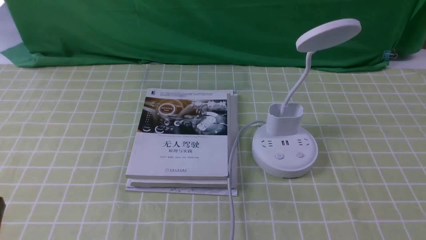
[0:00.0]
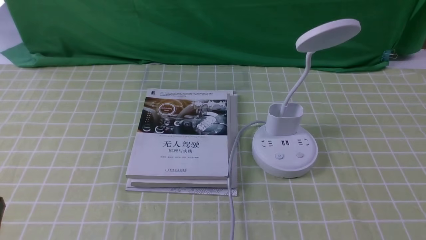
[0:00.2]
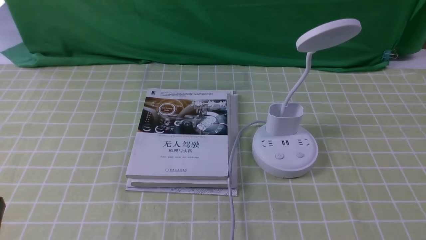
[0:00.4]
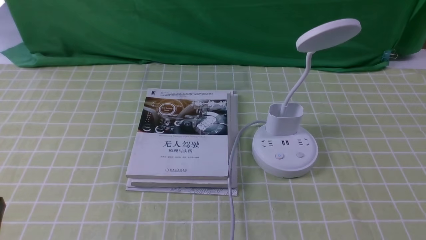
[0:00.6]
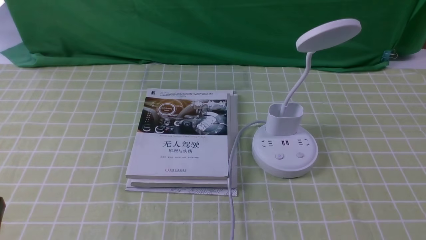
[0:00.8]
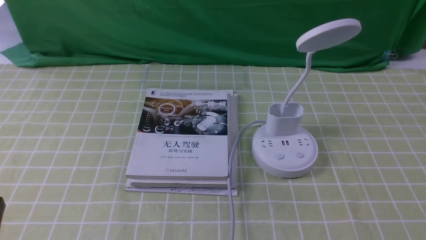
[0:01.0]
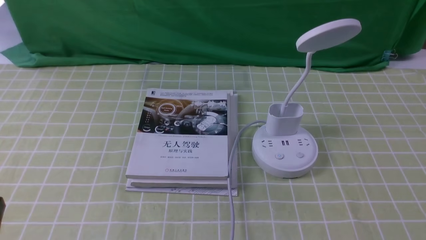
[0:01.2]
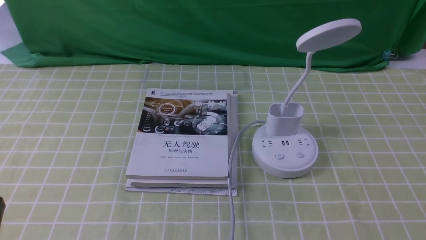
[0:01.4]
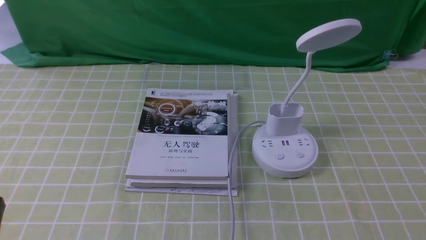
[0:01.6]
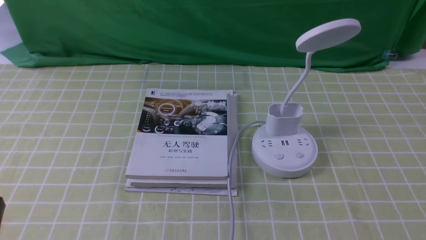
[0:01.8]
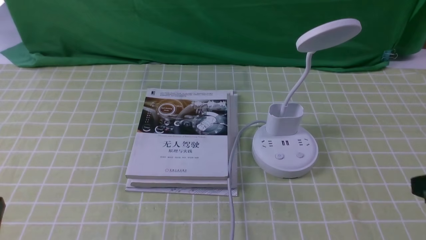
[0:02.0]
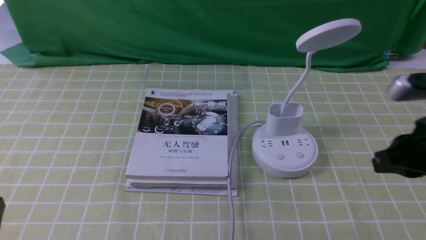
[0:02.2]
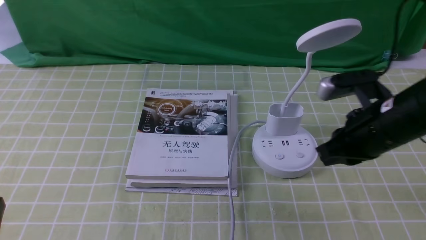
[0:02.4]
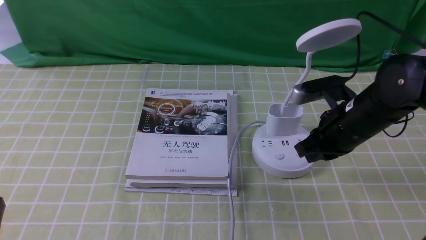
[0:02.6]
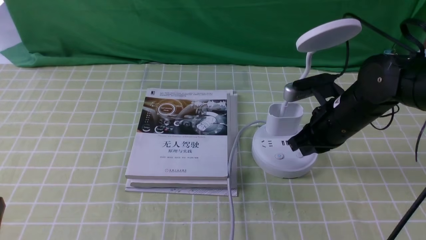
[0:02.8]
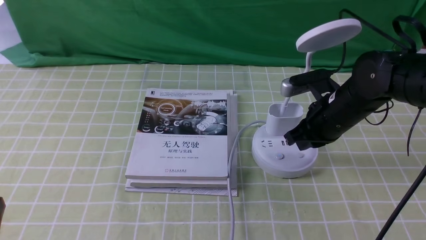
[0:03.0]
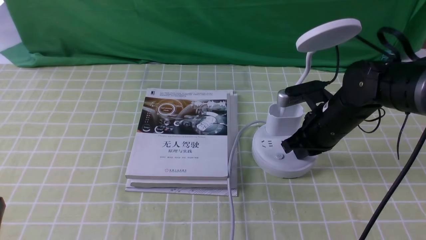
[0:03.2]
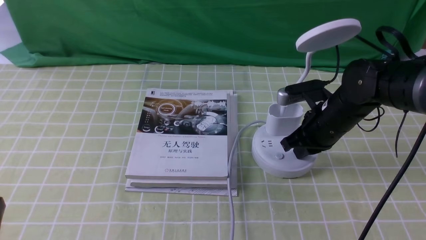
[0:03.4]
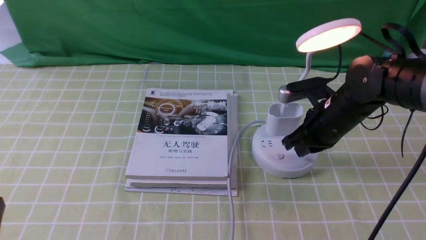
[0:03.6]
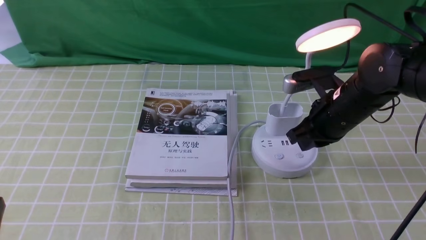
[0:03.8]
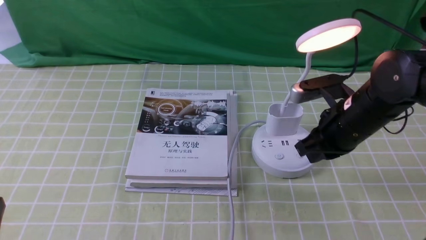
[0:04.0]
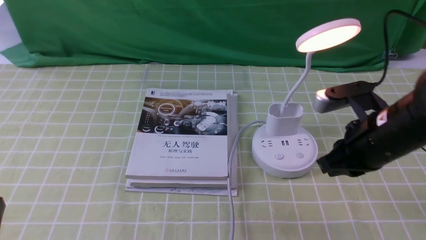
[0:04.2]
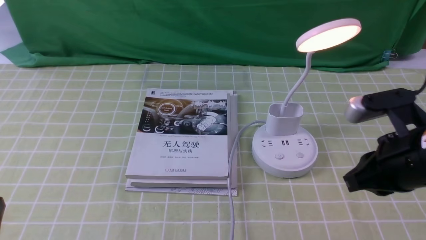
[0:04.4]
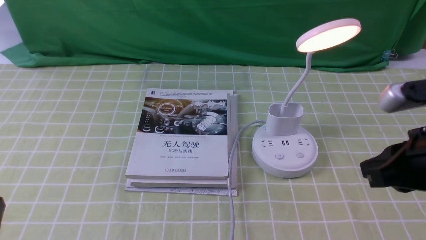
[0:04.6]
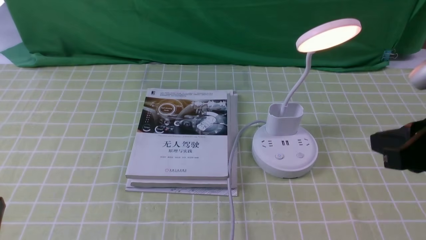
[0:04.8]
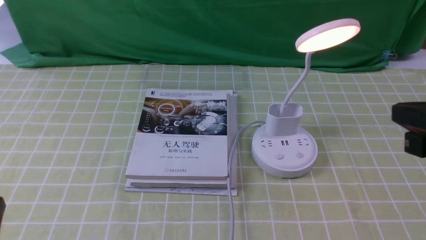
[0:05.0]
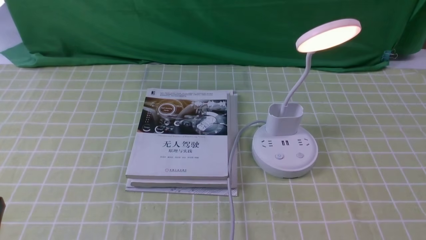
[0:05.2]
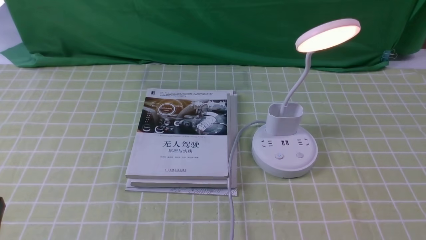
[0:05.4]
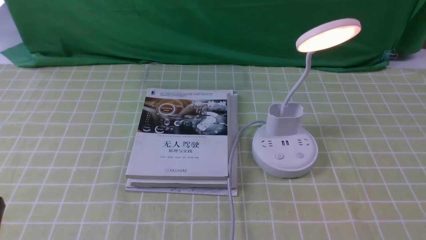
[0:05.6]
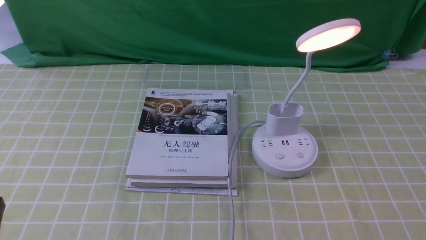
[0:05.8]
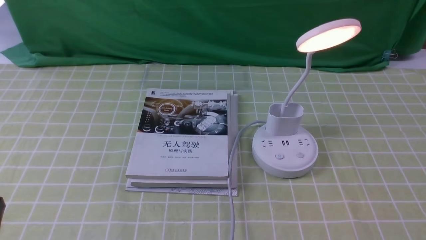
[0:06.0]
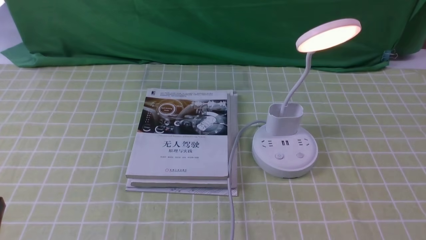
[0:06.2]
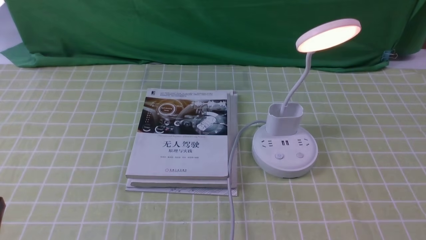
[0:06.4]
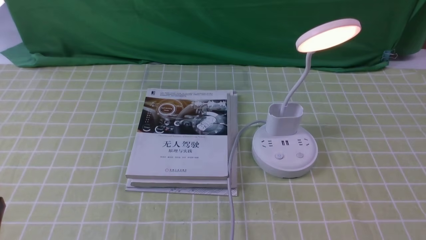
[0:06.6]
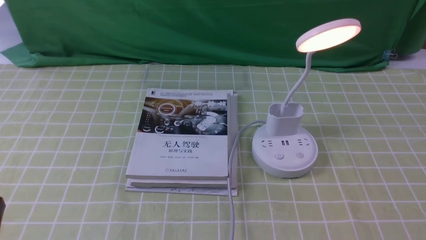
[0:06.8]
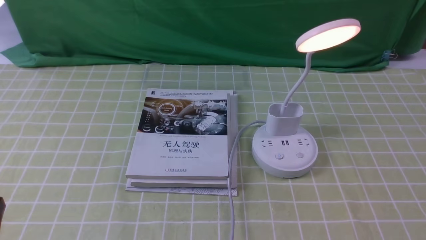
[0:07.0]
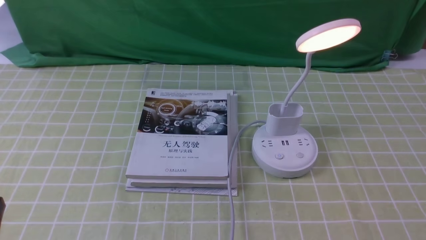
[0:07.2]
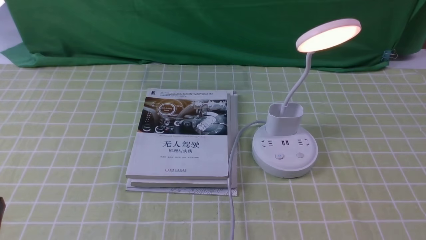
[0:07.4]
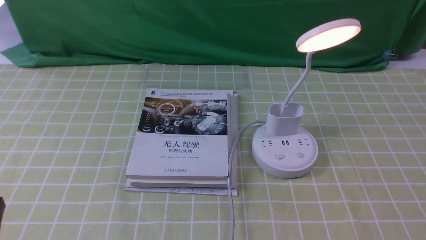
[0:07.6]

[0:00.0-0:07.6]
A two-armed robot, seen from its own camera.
Step, 0:00.0 to 0:03.8: use the right arm to press the button switch on the lamp holder.
0:01.6 to 0:03.0: The right gripper travels forward and to the left by some 30 cm, and closes its fingers.
0:03.0 to 0:04.6: The right gripper moves backward and upward, some 20 cm.
0:04.6 to 0:06.0: The right gripper is displaced backward, downward and to the right by roughly 20 cm.

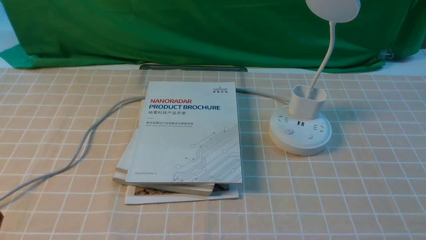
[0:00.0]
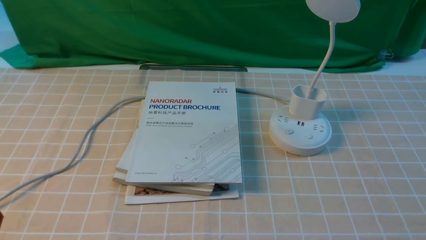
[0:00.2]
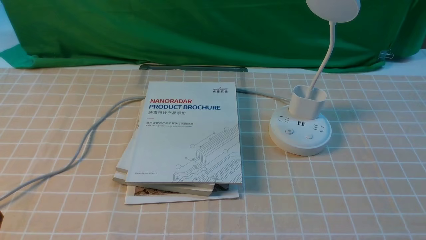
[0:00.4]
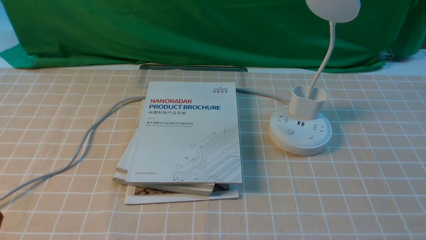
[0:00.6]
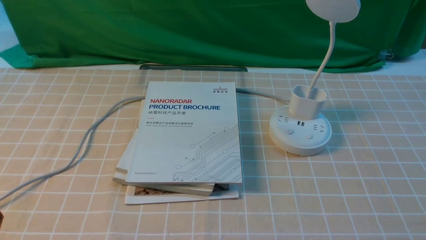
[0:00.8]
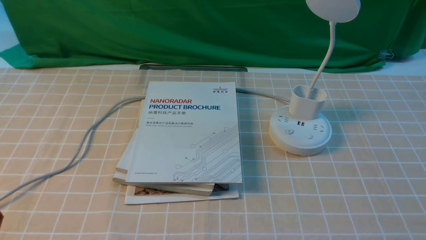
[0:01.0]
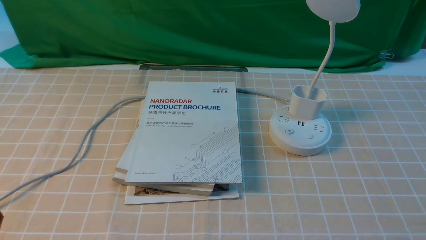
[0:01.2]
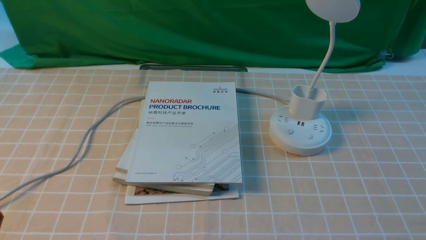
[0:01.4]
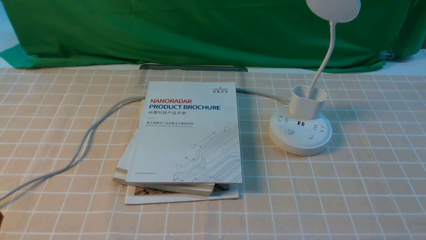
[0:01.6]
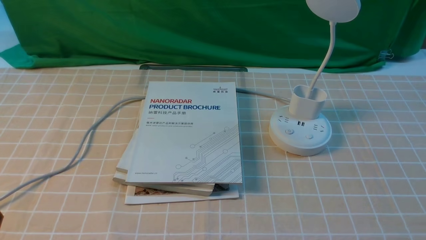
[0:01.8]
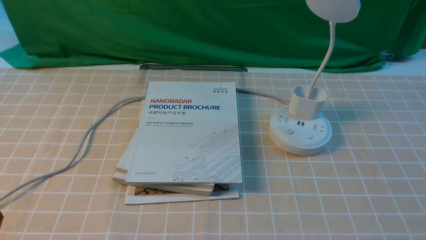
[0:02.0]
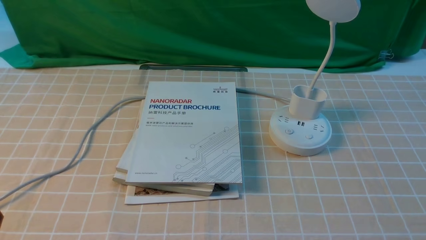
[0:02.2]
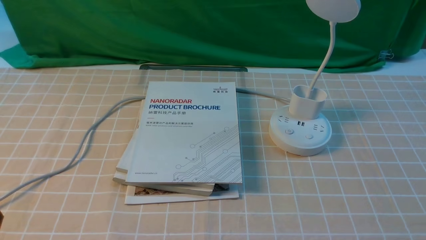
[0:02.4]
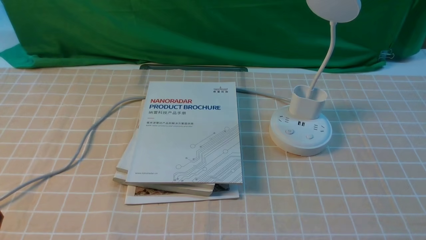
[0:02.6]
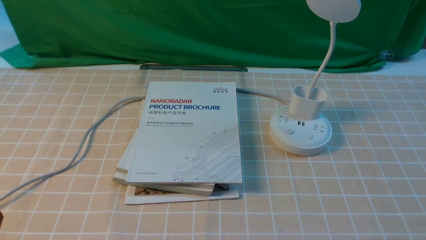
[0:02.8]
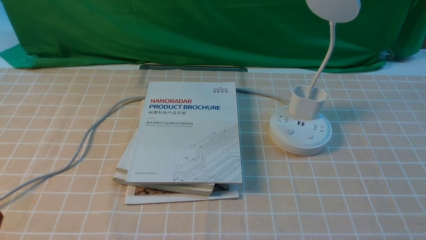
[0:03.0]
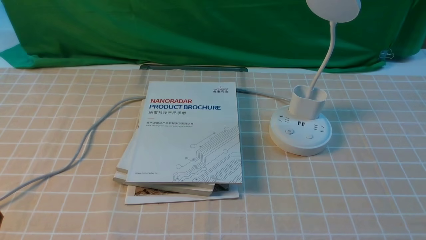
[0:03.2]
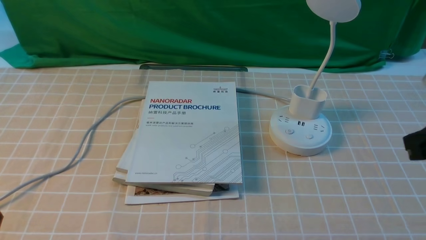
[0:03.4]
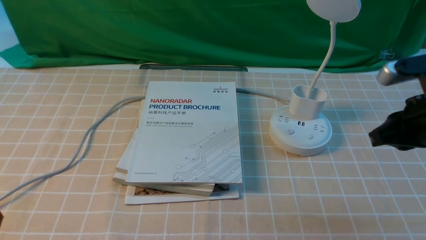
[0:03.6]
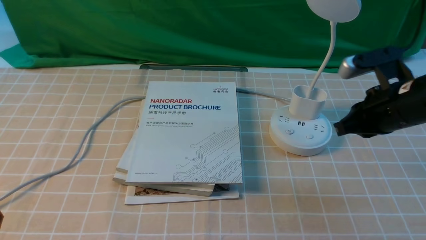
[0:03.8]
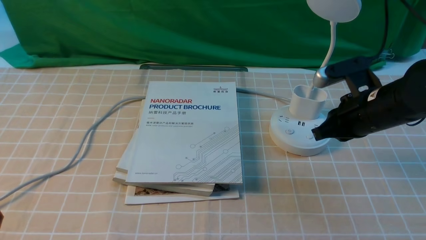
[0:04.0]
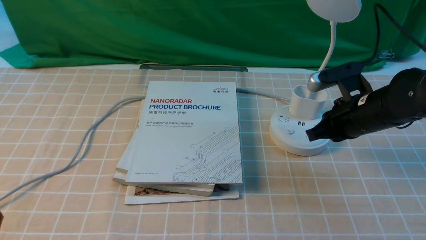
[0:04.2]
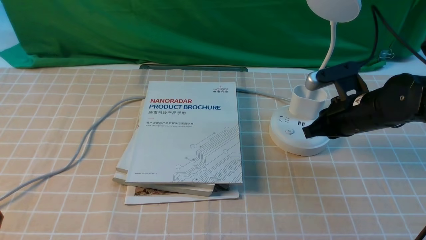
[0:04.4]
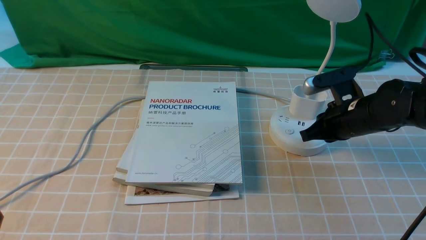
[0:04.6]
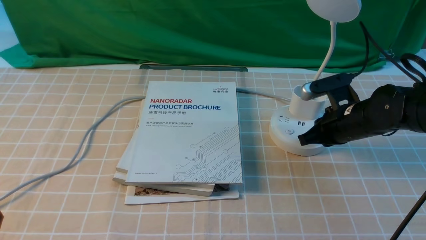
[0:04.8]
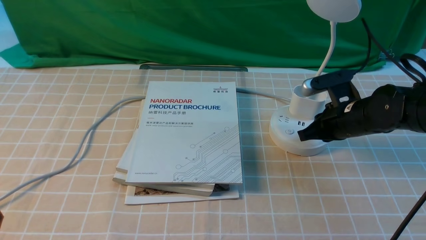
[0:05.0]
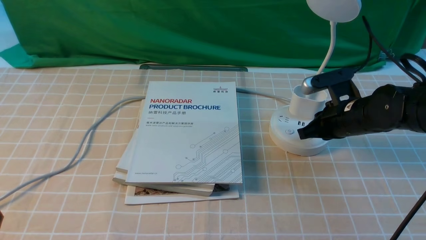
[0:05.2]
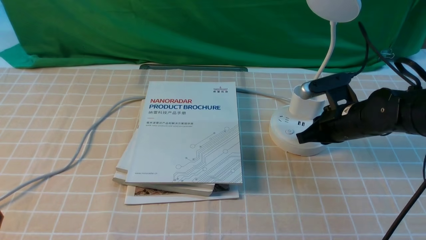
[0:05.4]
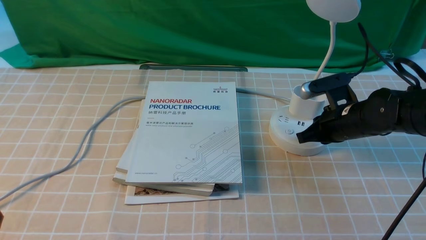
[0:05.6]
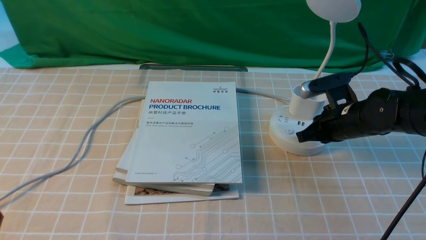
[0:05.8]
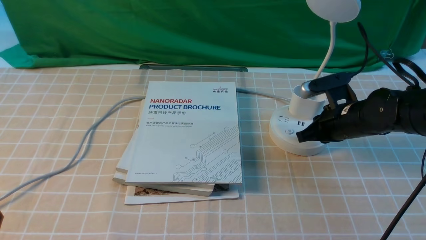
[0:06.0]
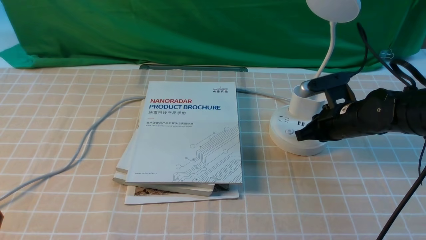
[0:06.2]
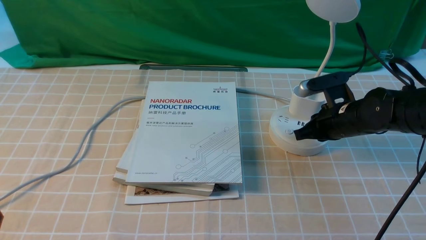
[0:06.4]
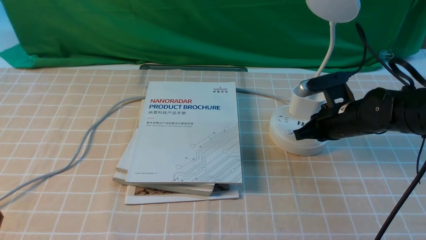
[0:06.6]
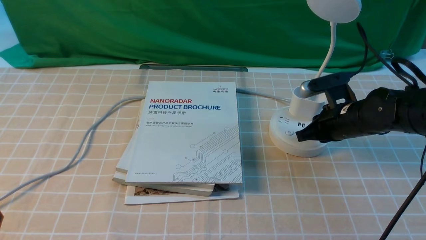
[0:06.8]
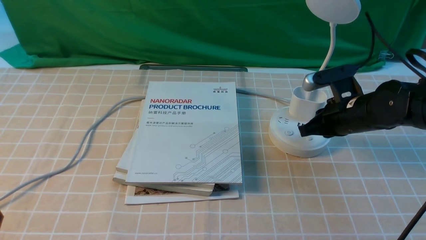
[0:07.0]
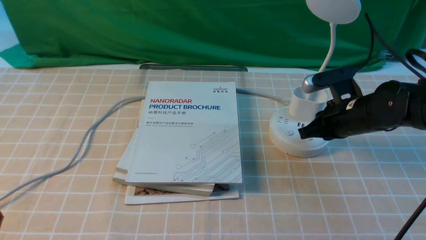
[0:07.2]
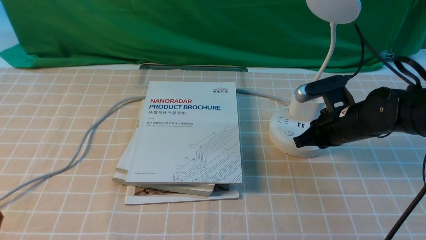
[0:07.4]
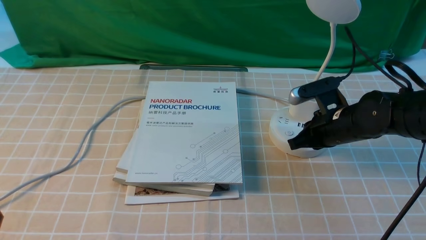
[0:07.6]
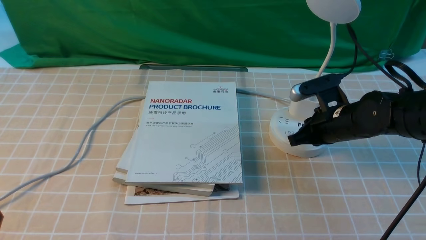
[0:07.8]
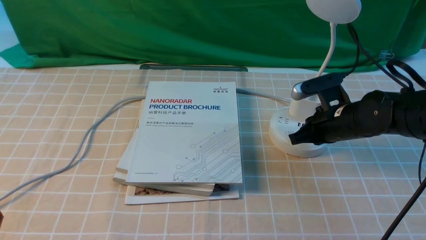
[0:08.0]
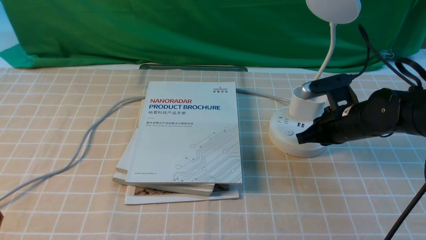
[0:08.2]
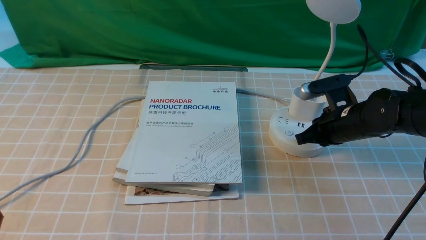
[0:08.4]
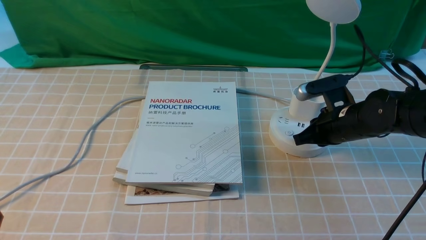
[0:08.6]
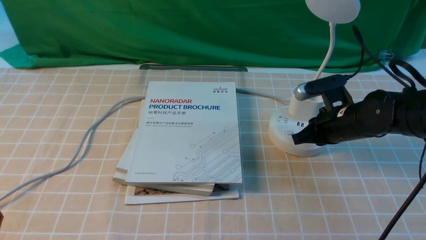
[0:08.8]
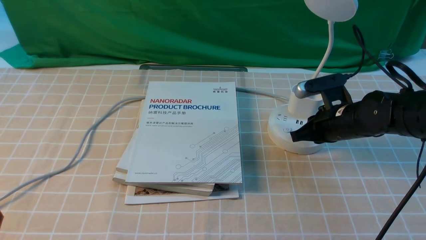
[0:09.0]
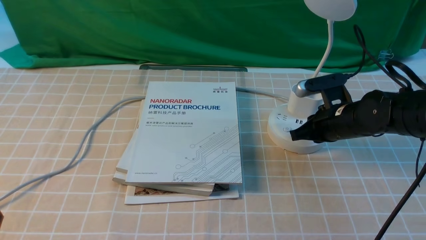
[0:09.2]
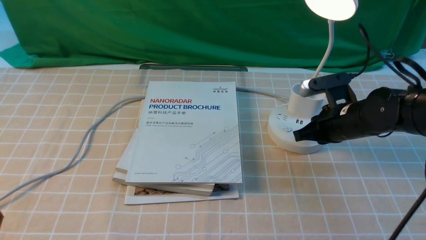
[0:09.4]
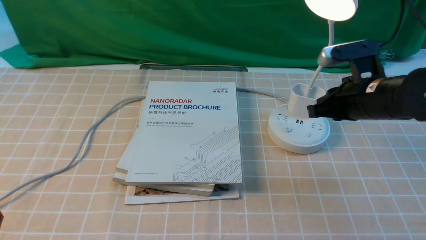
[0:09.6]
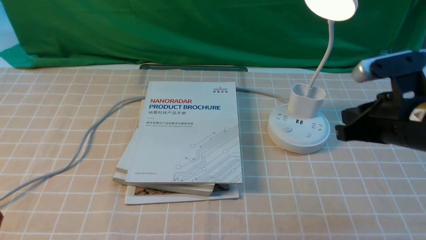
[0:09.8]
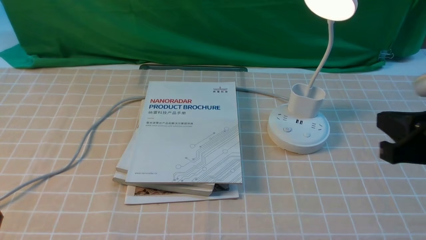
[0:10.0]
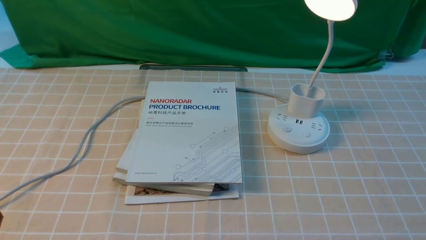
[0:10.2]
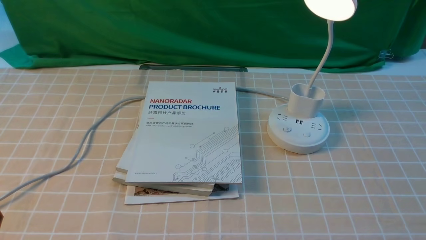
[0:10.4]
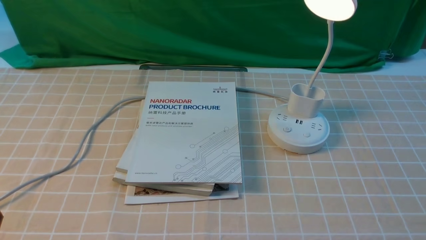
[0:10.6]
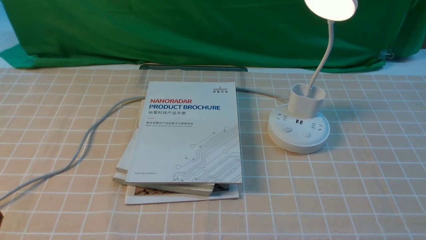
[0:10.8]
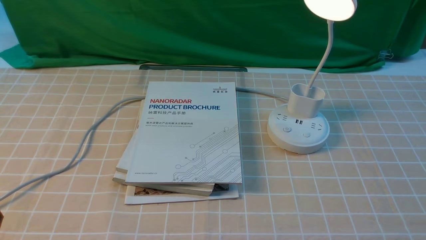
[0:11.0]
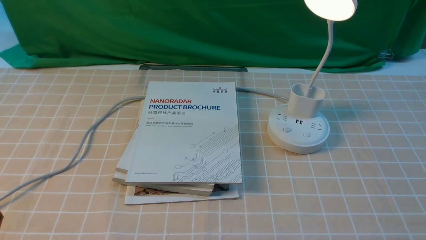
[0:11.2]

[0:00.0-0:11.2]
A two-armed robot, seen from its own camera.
Step, 0:00.0 to 0:09.8: use the right arm to press the button switch on the lamp holder.
0:00.0 to 0:01.6: Both grippers stay about where they are.
0:03.2 to 0:04.8: The right gripper is displaced forward, downward and to the left by roughly 25 cm.
0:04.8 to 0:08.0: The grippers move only a little.
0:08.0 to 0:09.6: The right gripper shifts about 5 cm upward.
0:09.6 to 0:11.2: The right gripper travels backward by some 25 cm.
